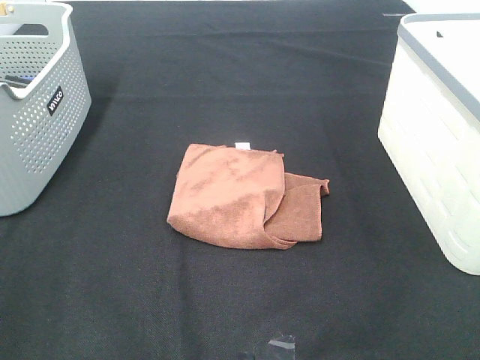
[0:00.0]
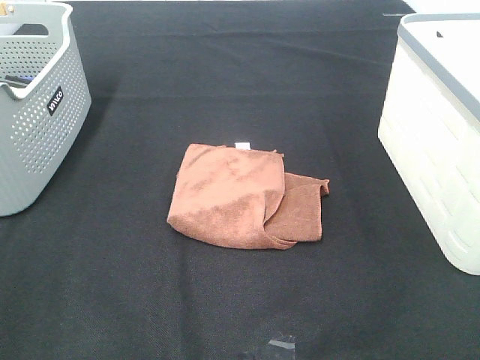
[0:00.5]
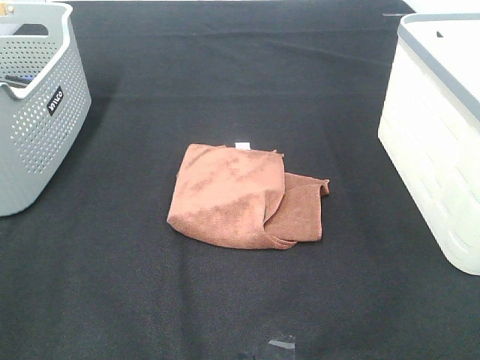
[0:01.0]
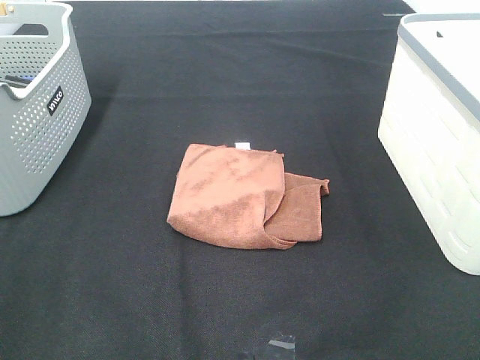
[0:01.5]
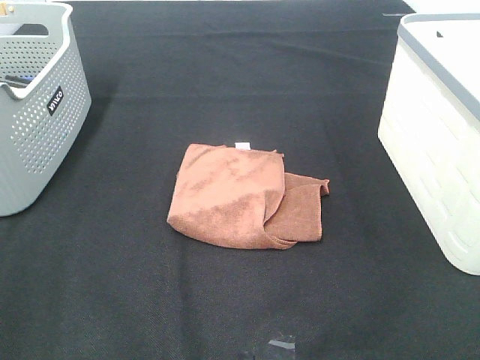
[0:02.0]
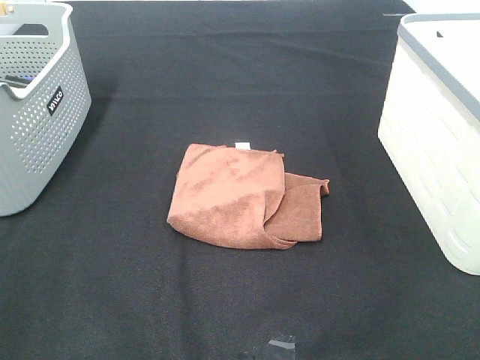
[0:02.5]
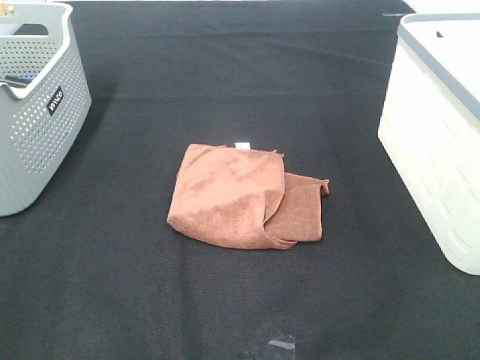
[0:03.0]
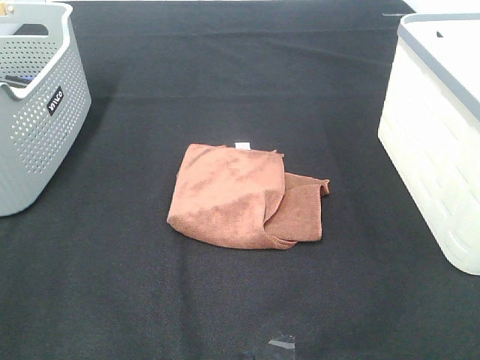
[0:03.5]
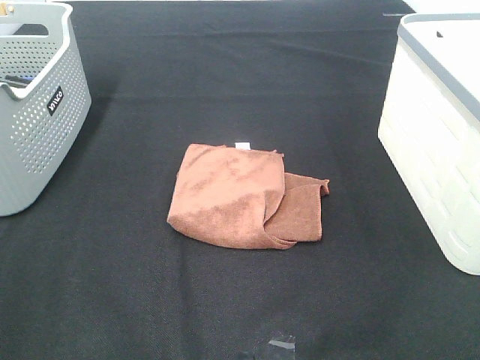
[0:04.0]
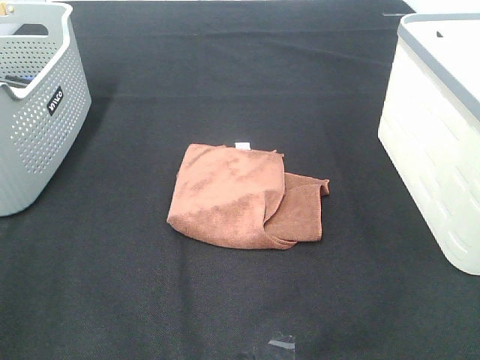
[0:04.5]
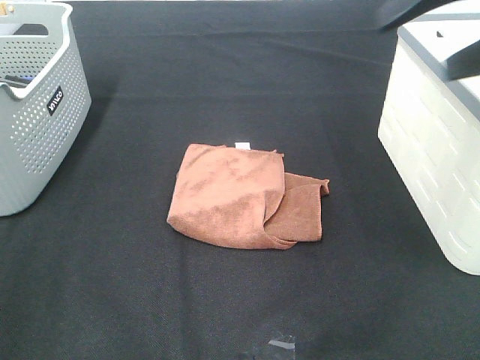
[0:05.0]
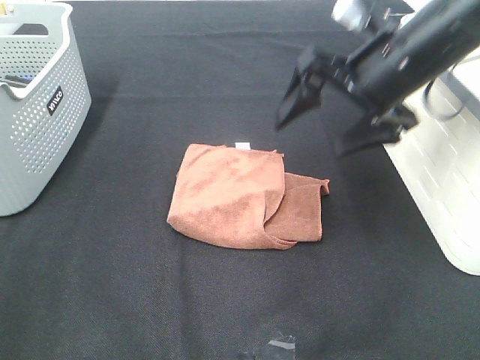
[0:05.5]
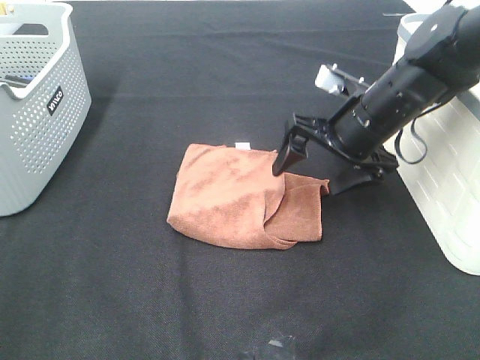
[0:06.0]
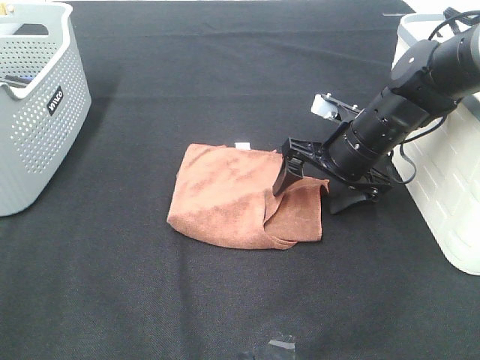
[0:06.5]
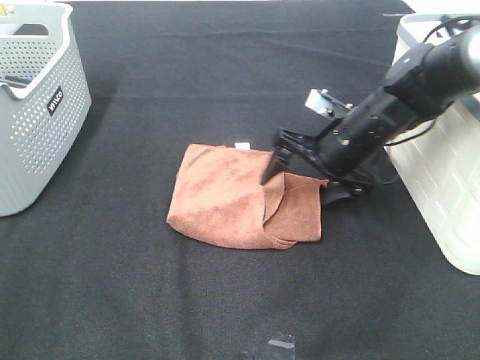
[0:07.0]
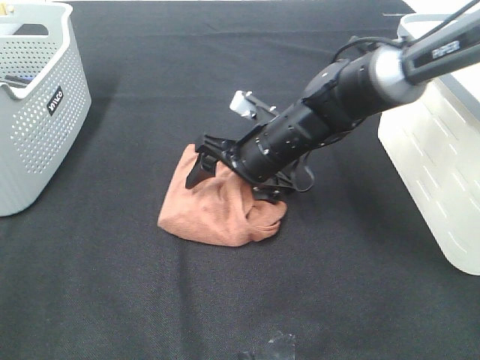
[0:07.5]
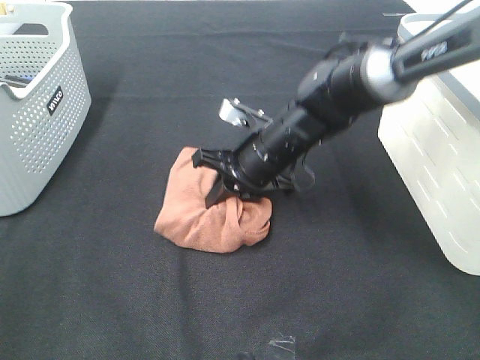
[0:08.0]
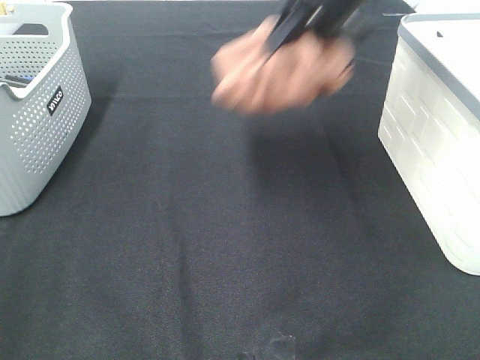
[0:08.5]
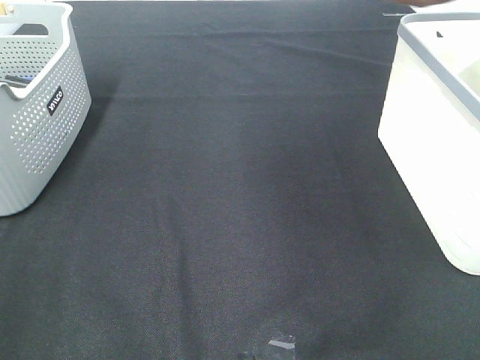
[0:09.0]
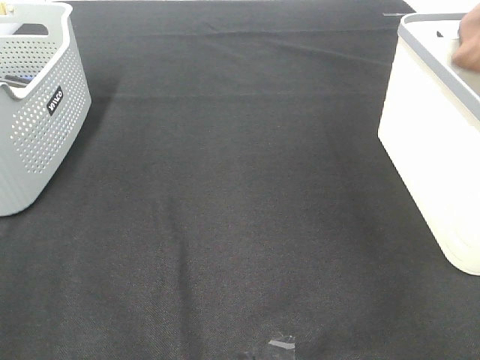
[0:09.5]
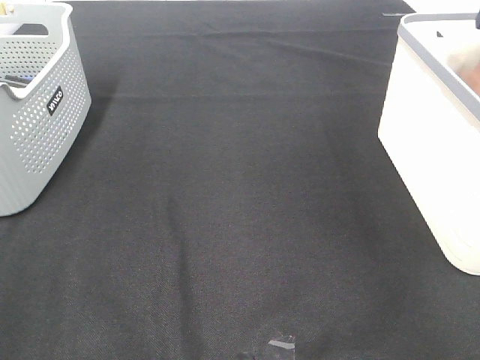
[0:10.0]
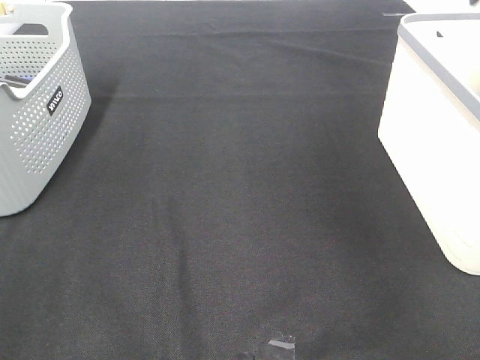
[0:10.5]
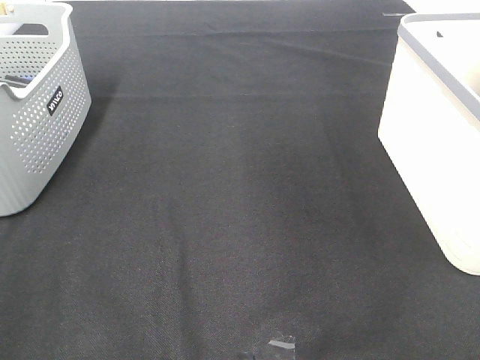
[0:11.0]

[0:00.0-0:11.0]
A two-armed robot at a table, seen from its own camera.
Step, 0:00.0 to 0:07.5: Right hand: grab the folded brown towel.
Step, 0:08.0 to 0:10.0: Right hand: place the brown towel in right basket.
0:00.0 to 0:03.5: Both grippers stay put.
0:03.5 to 0:05.5: The right gripper travels forward and to the left by some 35 cm.
0:05.5 to 0:07.5: The right gripper moves downward and to the left, some 20 cm.
0:07.5 to 0:09.0: The right gripper shifts roughly 40 cm upward and to the right, and closes up.
0:09.0 to 0:11.0: The right gripper goes downward and returns, about 10 cm each way, and opens.

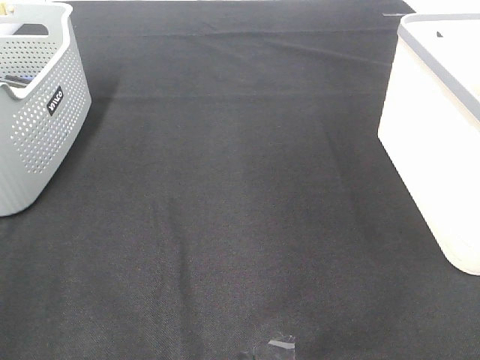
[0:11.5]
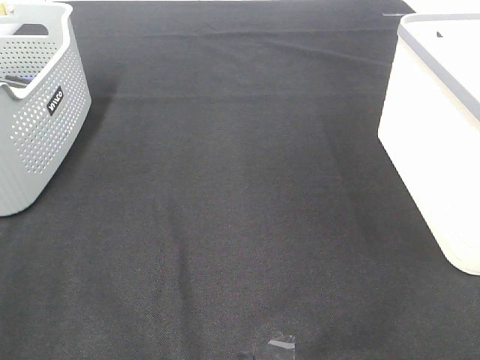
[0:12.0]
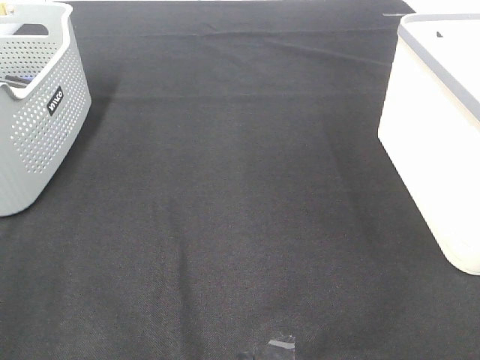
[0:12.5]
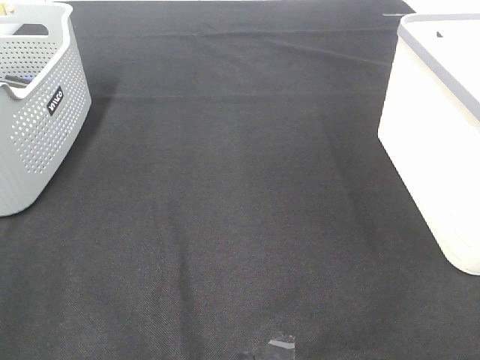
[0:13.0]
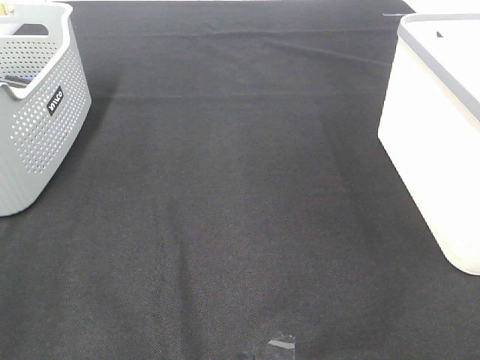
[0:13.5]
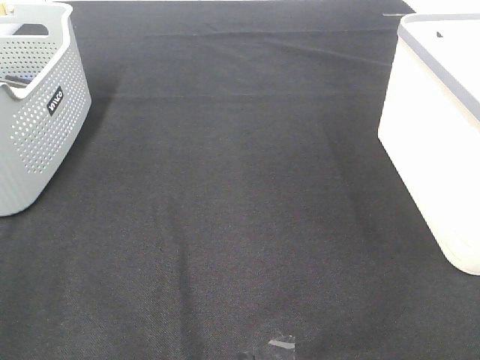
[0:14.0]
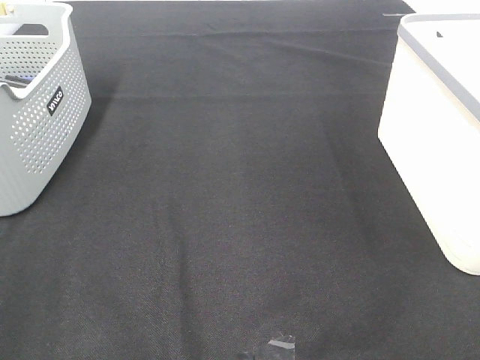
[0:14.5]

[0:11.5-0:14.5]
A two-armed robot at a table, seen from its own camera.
0:13.0 to 0:14.5: Both grippers stay about where they are.

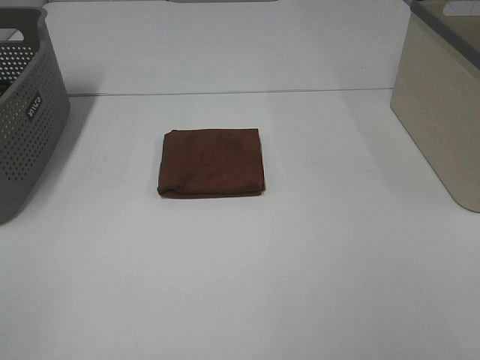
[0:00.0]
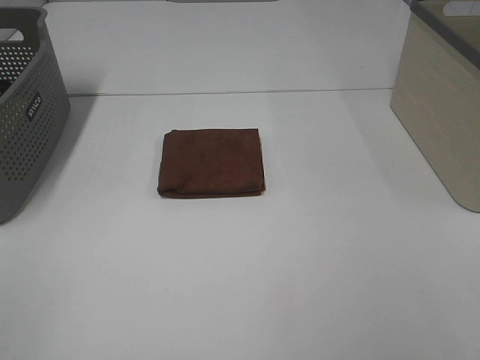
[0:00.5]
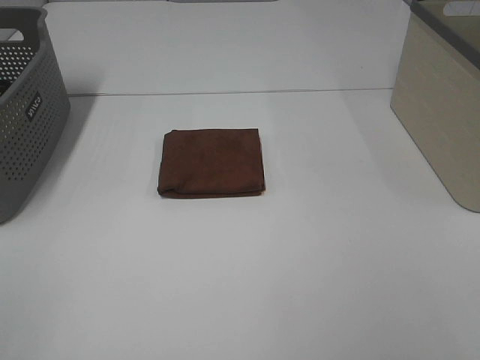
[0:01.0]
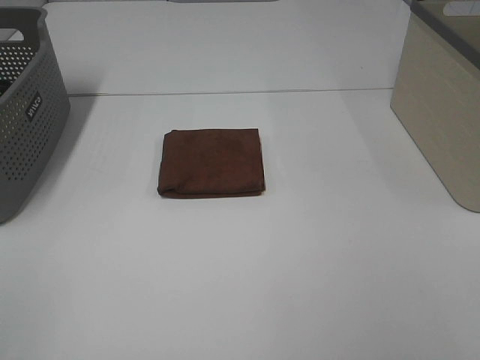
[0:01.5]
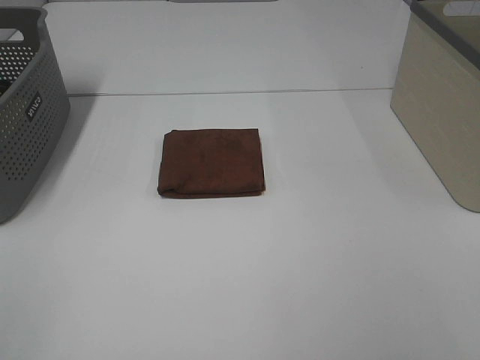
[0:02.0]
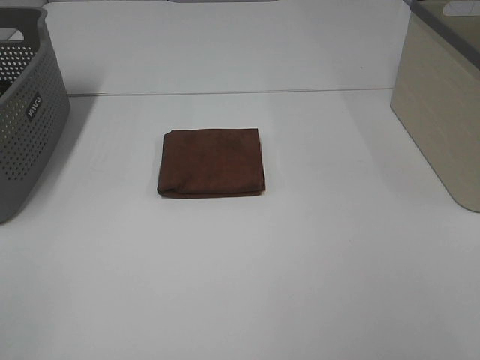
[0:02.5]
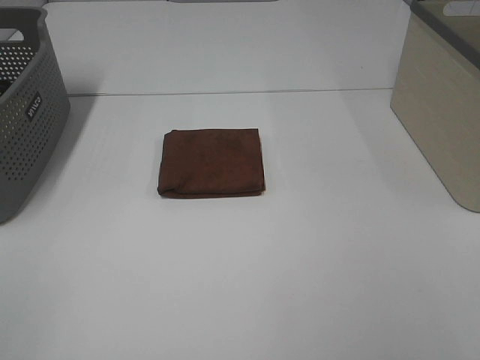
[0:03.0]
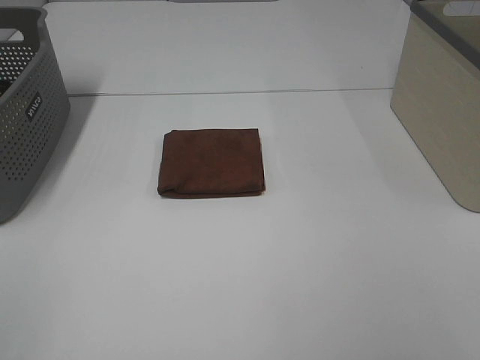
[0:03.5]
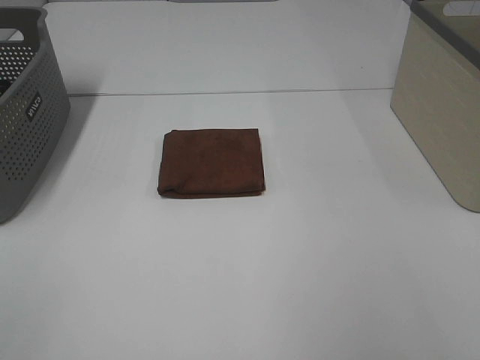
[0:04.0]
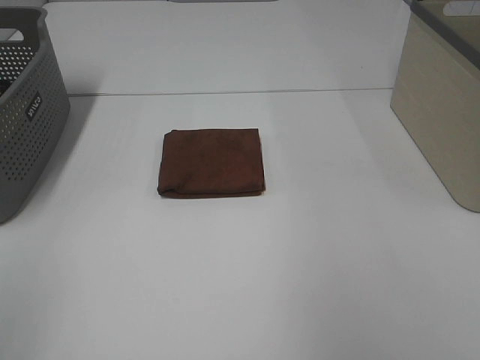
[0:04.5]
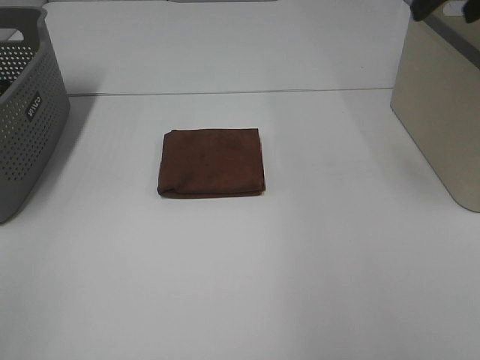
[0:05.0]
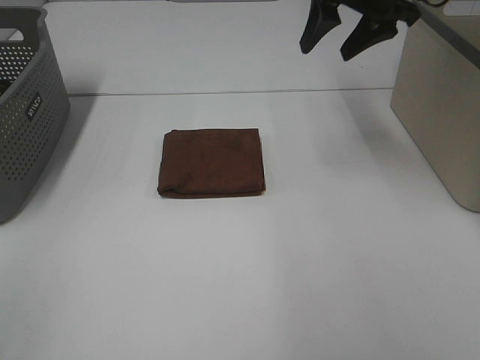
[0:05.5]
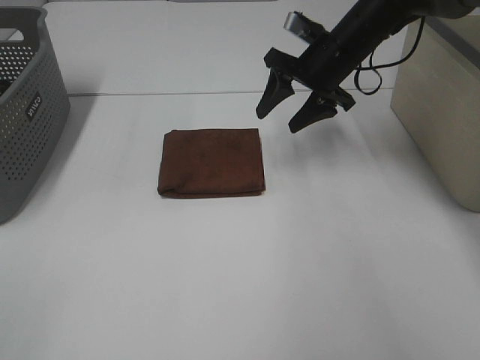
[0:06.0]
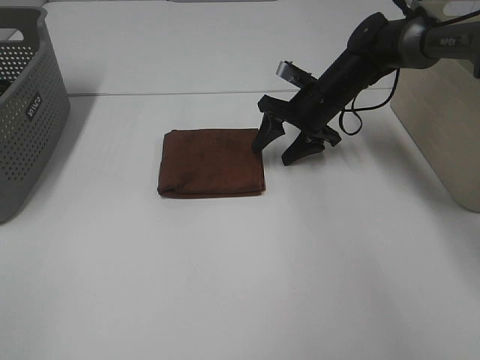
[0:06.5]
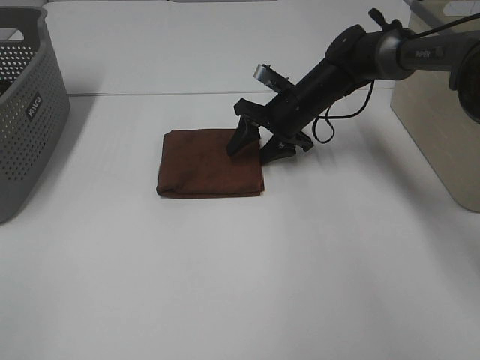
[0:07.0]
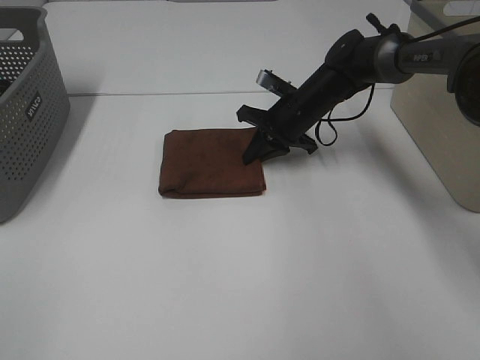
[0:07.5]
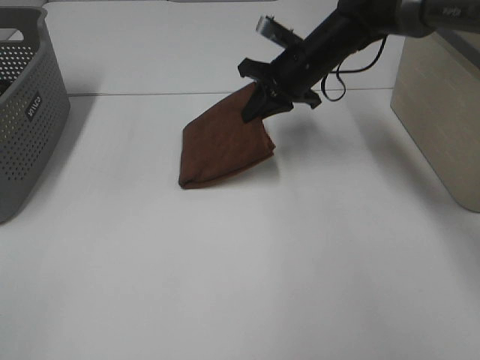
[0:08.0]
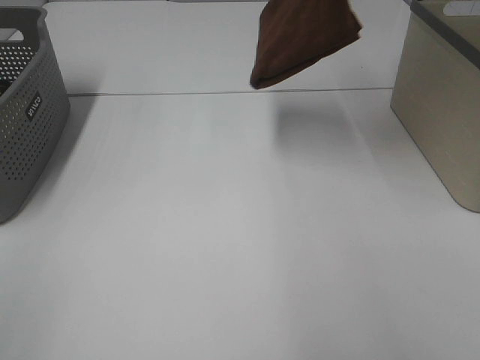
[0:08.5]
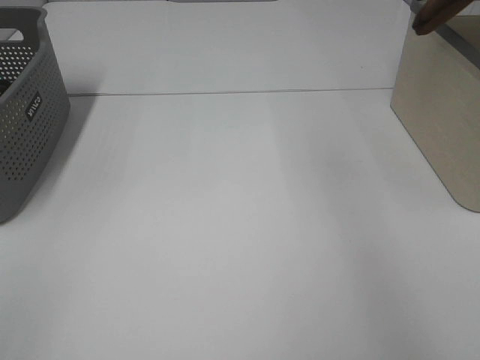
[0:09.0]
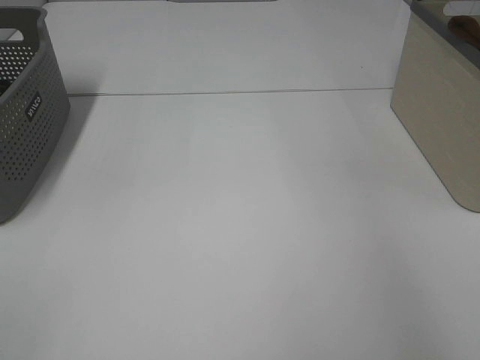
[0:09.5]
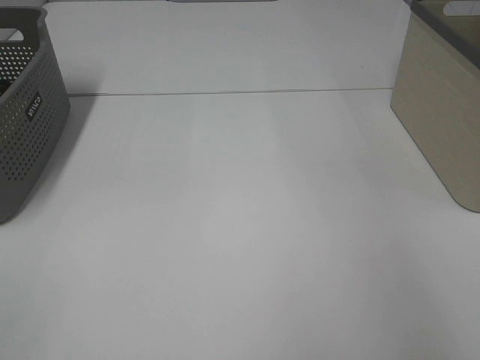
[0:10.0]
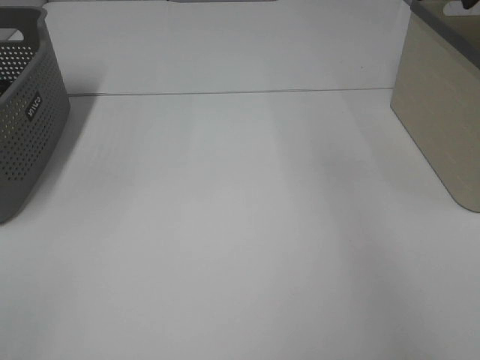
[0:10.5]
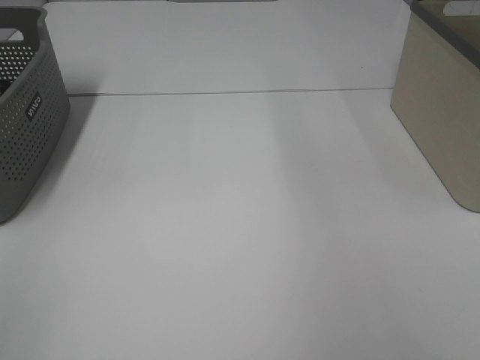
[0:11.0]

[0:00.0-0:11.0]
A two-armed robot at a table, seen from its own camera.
Step, 0:00.0 to 0:07.5: Right hand: grab the folded brown towel.
Step, 0:08.0 to 0:10.0: Right hand: place the brown towel in right basket.
0:00.0 to 0:03.5: The two grippers keep their place.
0:03.5 to 0:05.5: The right gripper heads forward, covering roughly 40 cm.
0:05.5 to 0:07.5: The right gripper shifts approximately 20 cm downward, and closes up.
0:07.5 to 0:09.0: The right gripper travels upward and to the right by roughly 40 cm.

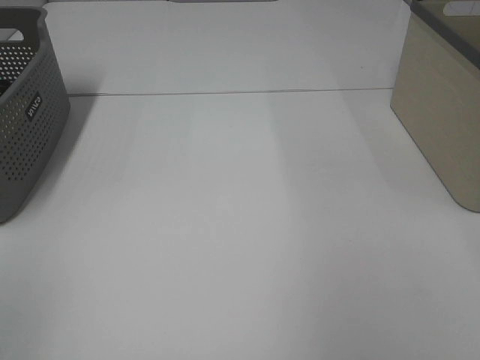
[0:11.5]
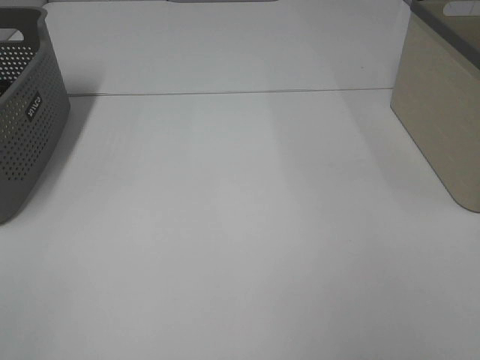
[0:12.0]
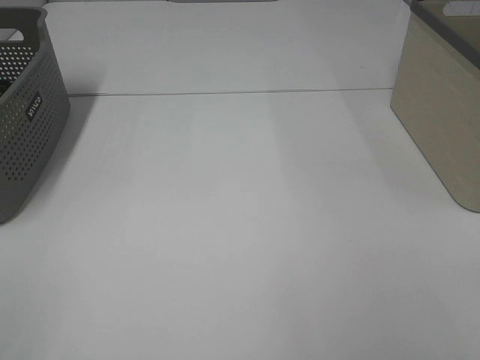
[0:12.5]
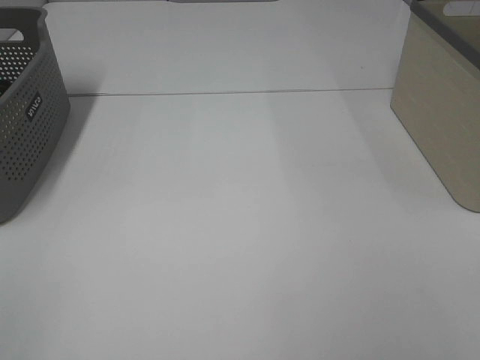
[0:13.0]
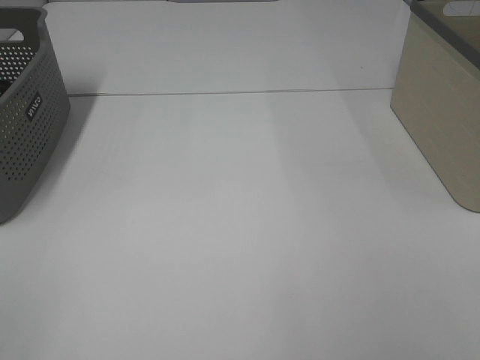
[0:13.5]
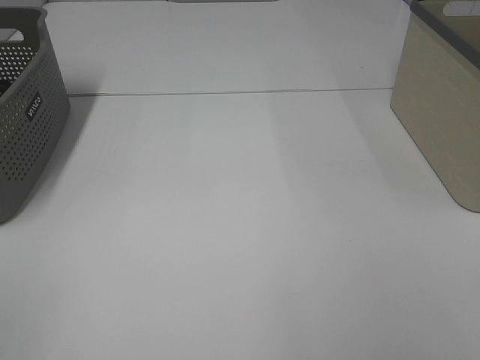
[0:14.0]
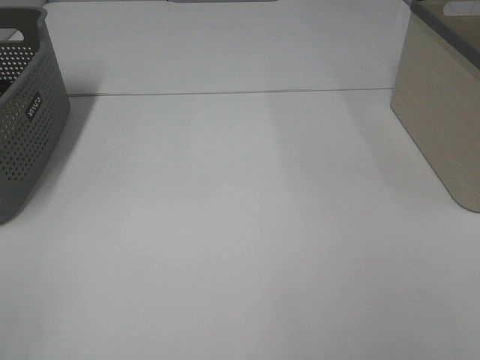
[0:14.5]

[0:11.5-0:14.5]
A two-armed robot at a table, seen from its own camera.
0:13.0 to 0:14.5: Both grippers stay about where they are.
